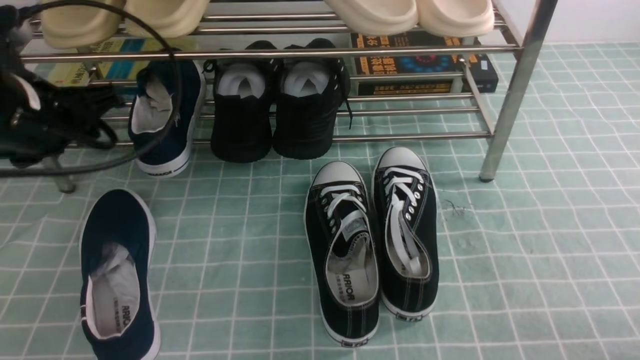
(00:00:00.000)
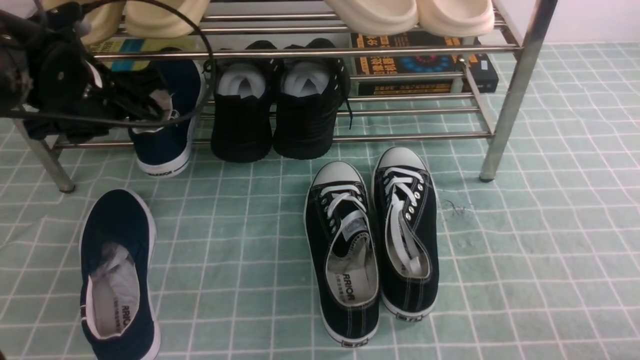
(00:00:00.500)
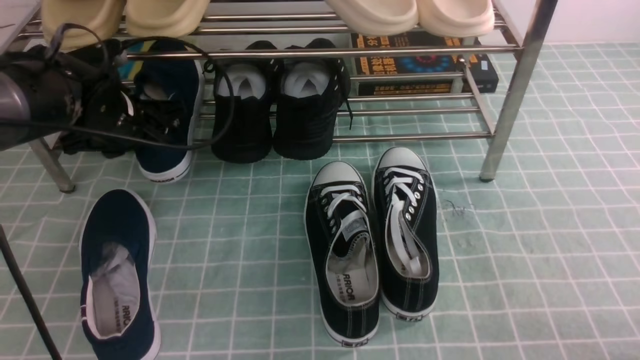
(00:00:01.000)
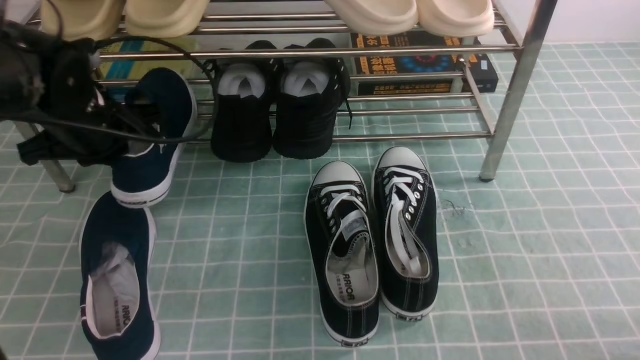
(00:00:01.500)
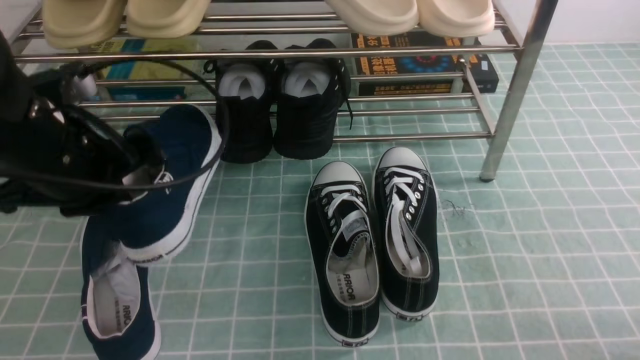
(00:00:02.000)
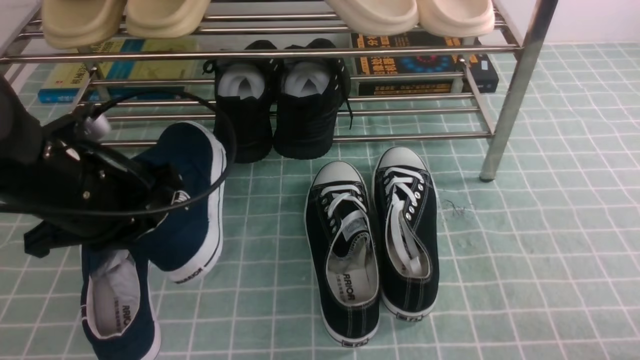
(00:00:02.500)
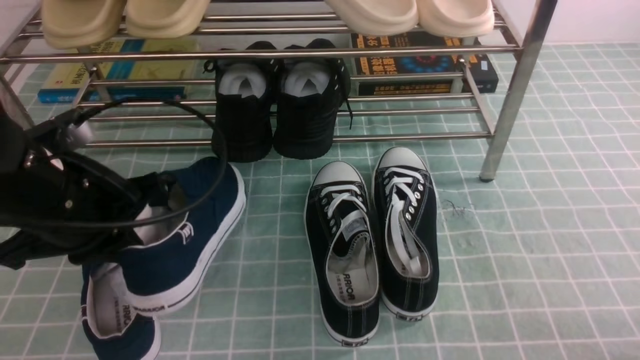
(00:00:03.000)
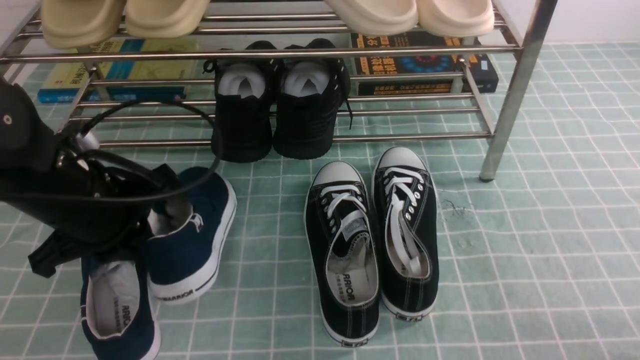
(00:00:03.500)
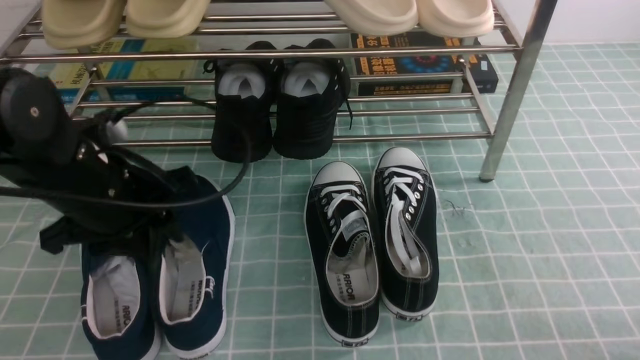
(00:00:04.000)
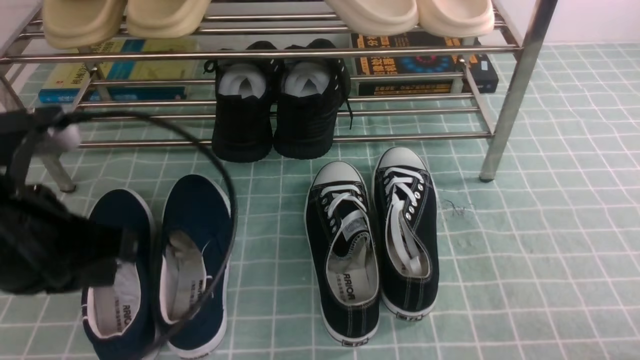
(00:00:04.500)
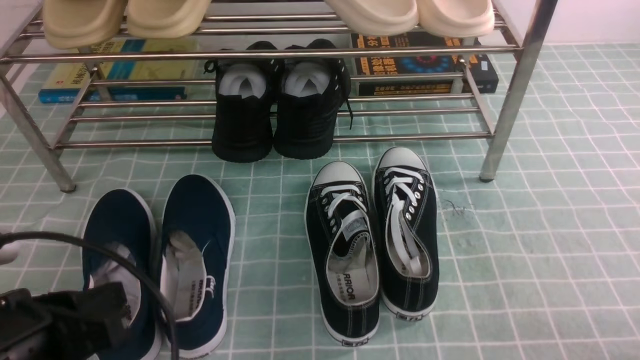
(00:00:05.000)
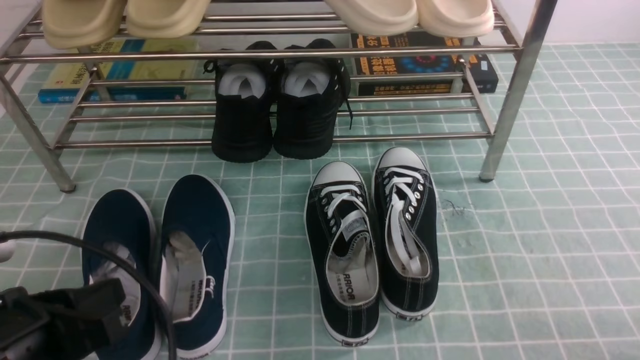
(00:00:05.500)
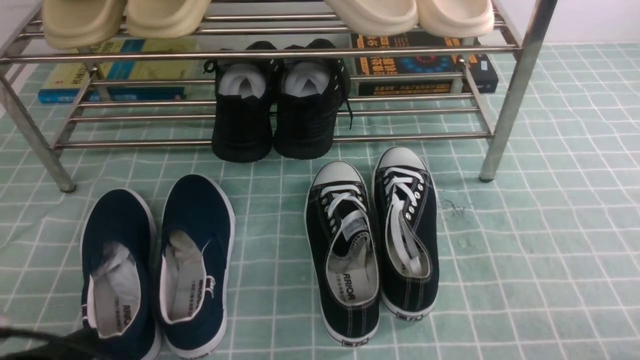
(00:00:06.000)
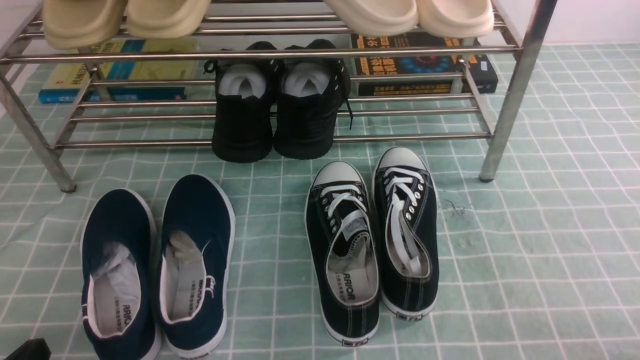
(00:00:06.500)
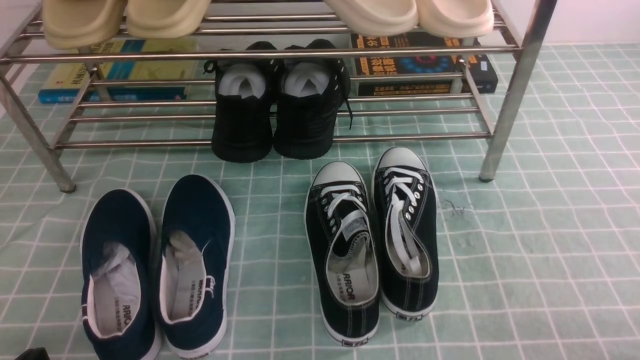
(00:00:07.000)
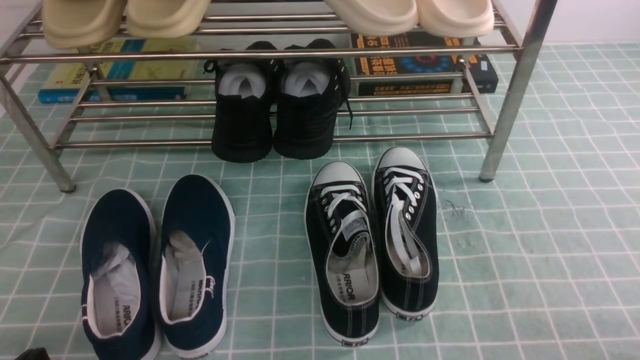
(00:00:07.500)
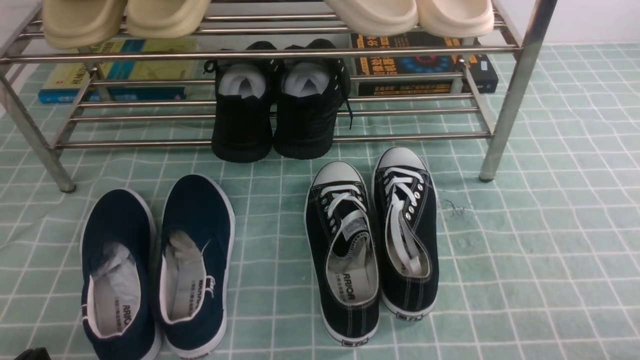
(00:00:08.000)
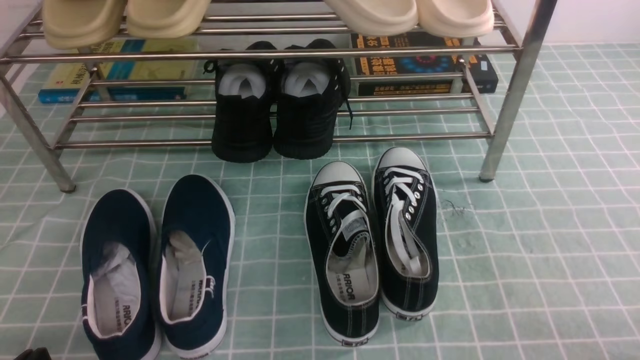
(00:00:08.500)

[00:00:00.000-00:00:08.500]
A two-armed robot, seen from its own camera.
Step, 00:00:00.000 to 00:00:01.000: use the left arm to clamp a shoe on the left side of the shoe rack.
Step, 00:00:01.500 to 00:00:04.000: Use your left arm to remove the clamped shoe from the shoe rack and put it down.
00:00:00.000 to 00:00:02.000: The left gripper moves roughly 10 cm forward and comes back, and closes its fingers.
00:00:02.000 to 00:00:04.000: The left gripper opens up.
00:00:04.000 to 00:00:06.500: The left gripper travels backward and downward by approximately 25 cm, and closes up.
00:00:06.500 to 00:00:08.500: Neither gripper changes place.
